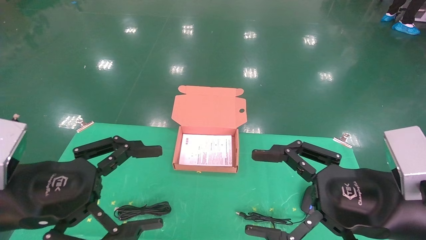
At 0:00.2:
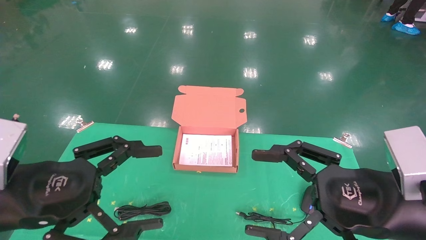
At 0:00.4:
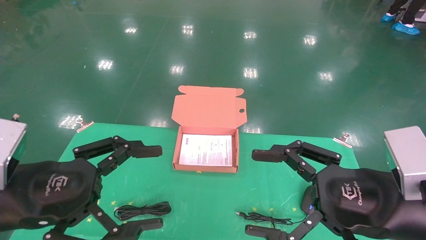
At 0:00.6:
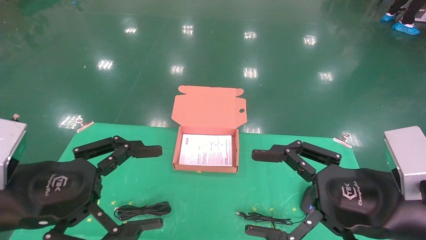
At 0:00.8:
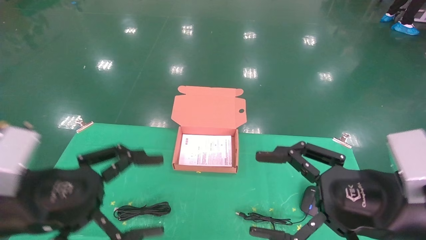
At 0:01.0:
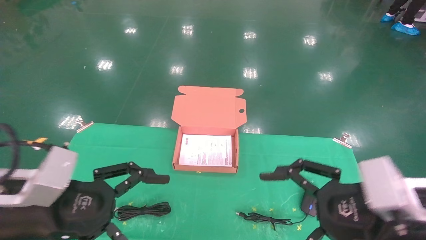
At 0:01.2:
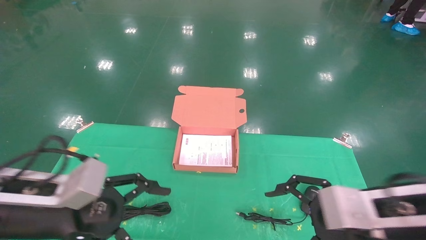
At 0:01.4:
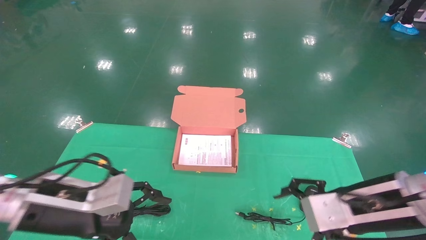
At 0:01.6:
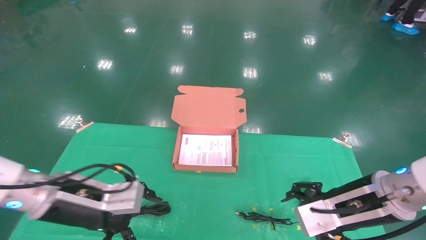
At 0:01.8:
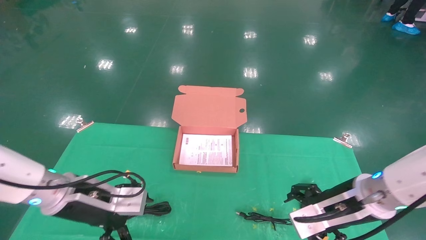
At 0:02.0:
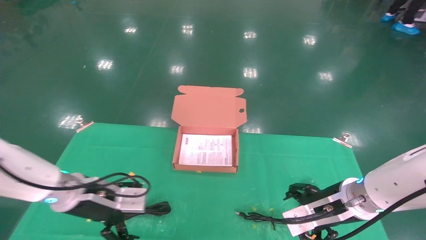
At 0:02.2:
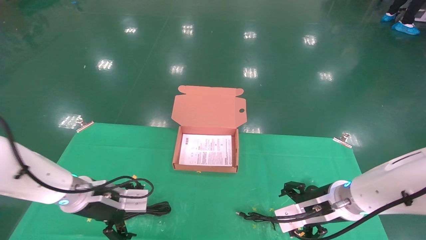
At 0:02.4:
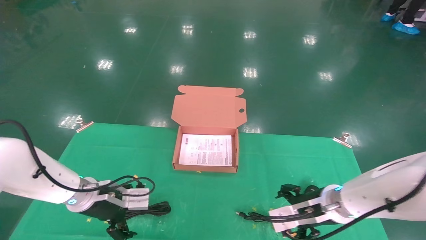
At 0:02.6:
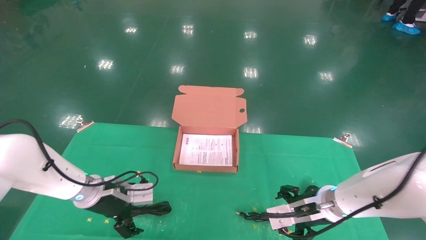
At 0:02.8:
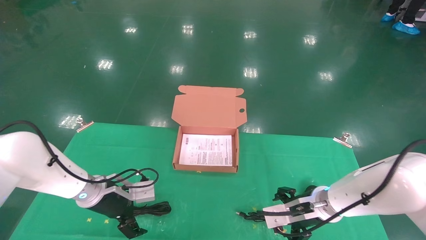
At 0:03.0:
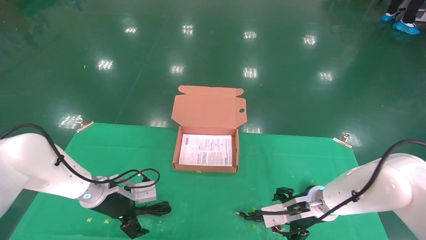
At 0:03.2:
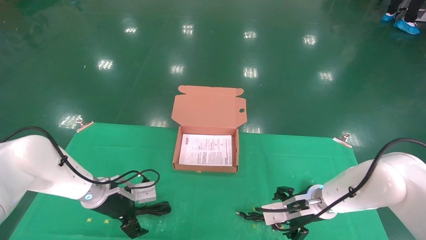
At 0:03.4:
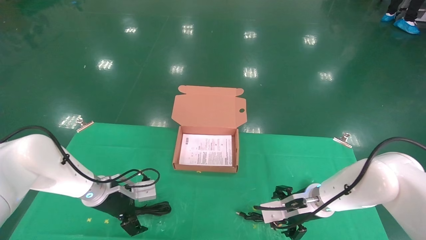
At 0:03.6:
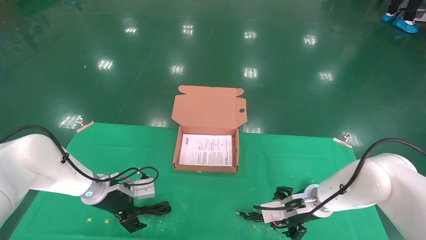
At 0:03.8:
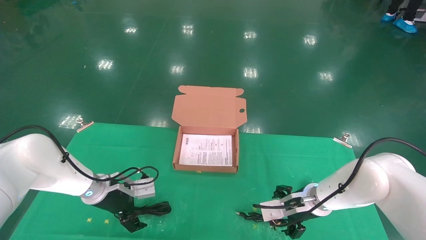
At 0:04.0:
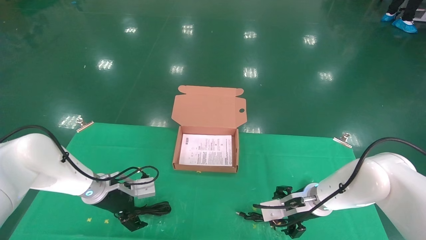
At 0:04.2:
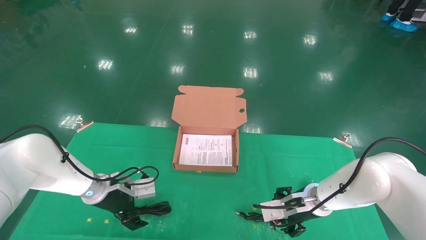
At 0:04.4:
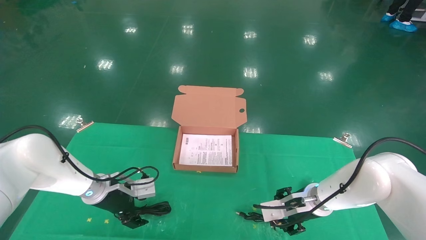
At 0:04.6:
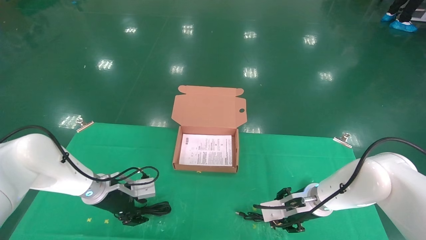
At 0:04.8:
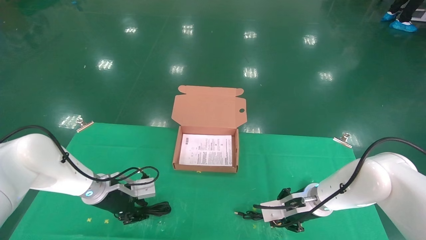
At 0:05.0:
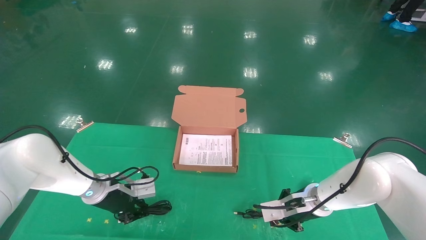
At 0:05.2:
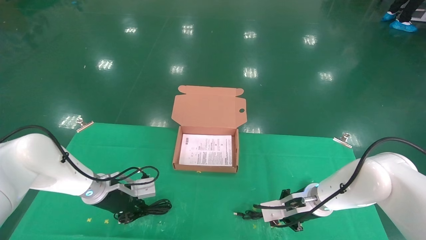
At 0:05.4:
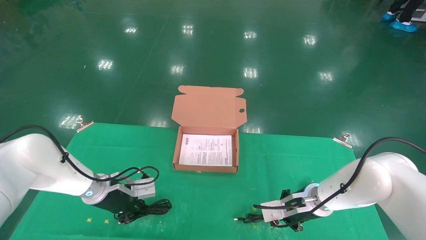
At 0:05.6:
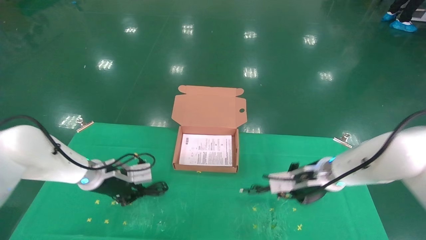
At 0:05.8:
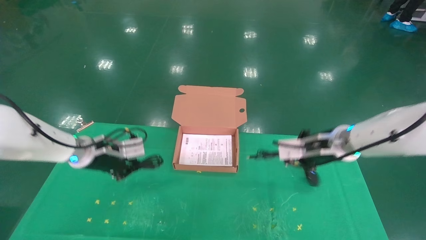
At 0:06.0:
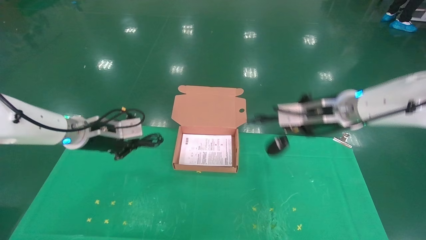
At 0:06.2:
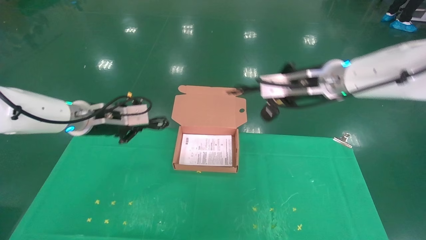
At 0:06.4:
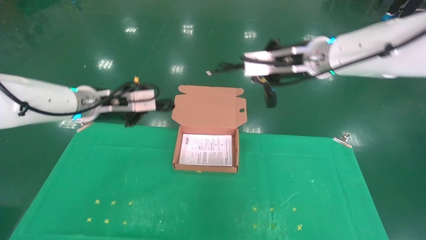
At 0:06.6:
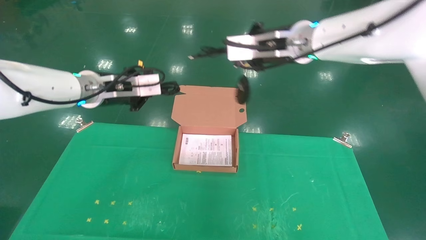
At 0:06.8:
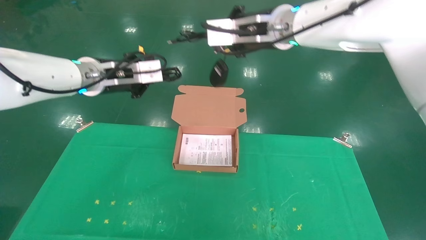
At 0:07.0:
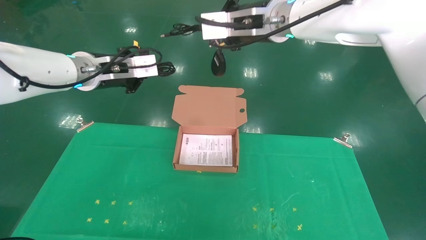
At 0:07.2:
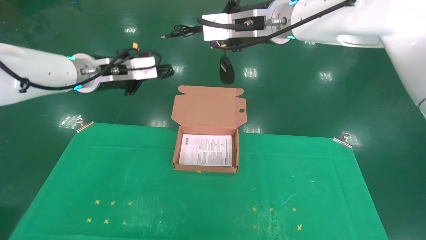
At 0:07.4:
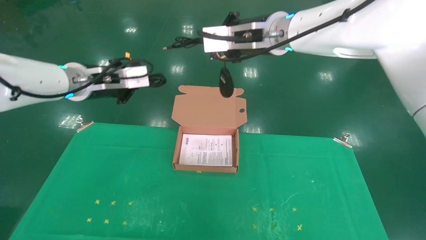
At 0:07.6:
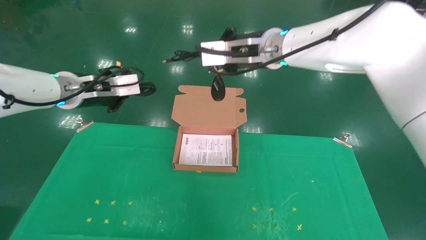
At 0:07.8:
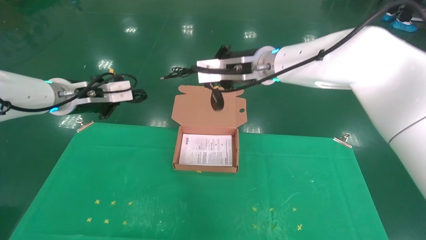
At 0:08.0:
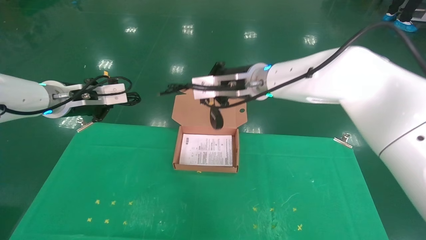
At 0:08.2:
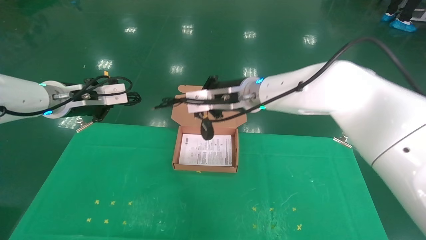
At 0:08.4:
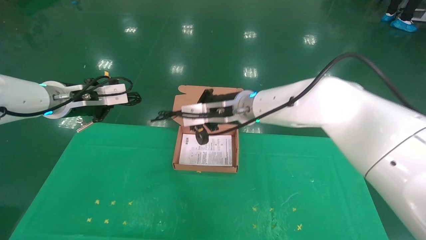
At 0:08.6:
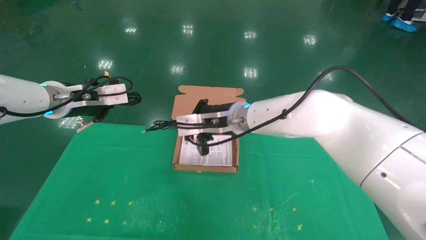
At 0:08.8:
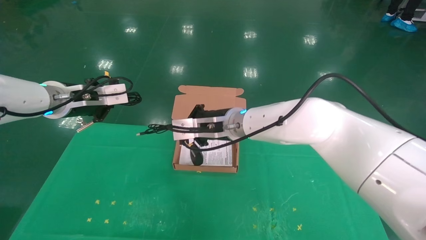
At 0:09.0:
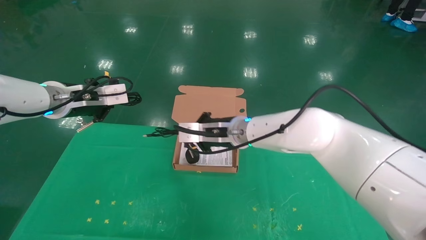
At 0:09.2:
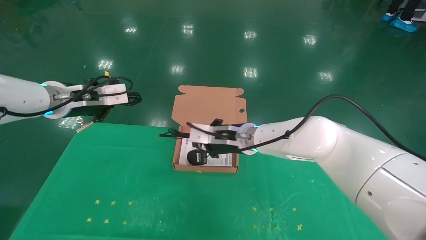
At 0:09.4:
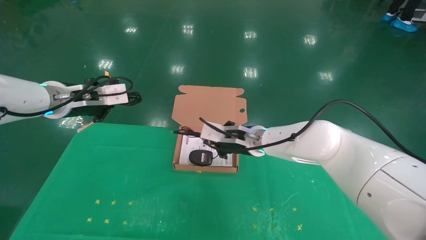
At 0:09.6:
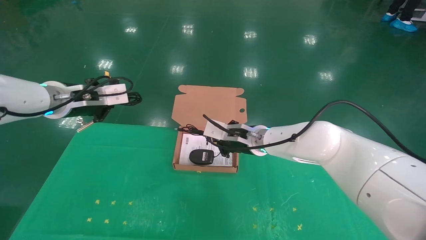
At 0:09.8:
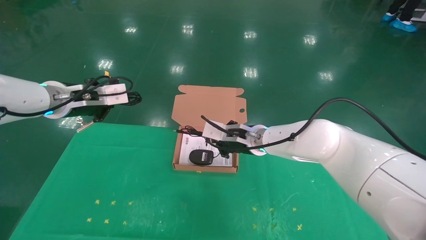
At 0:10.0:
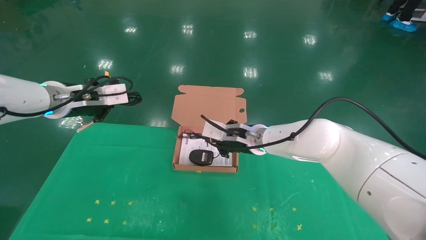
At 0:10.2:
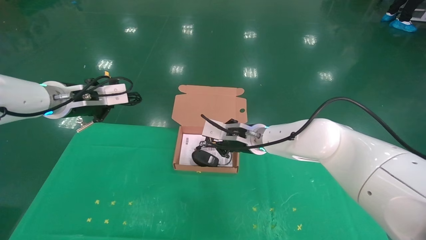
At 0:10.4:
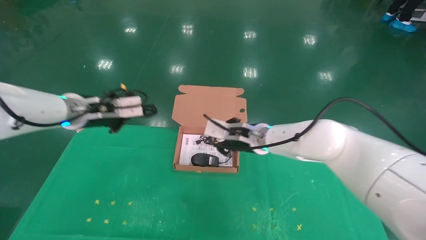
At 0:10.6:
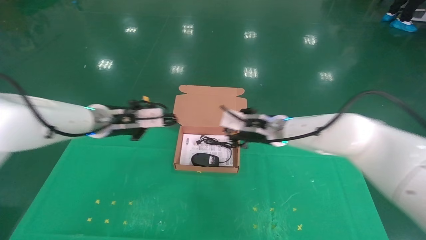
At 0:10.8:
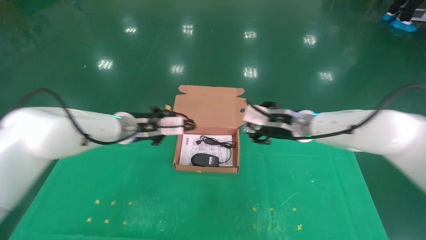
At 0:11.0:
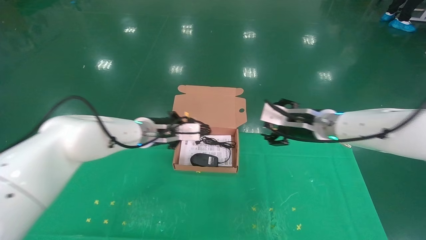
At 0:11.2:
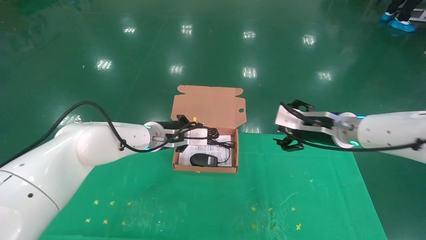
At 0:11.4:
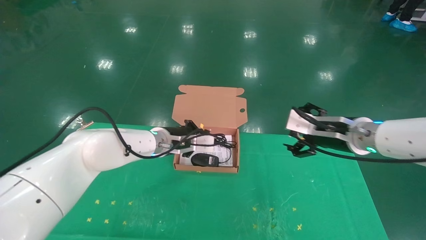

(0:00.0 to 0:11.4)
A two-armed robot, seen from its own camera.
Task of the whole recording: grasp data cable left put into box grasp mouse right put into box.
Step, 0:01.0 - 0:04.8: Grab and pick up both the mouse and power cord from the accessory packaging area at the same time.
0:00.0 - 0:01.4: The right gripper travels forward by about 5 cm. The left gripper goes about 10 cm forward and downward.
0:01.4 - 0:02.8: The two grippers go roughly 15 cm forward and downward.
0:02.8 - 0:04.2: The grippers move only a little.
0:04.2 - 0:05.6: The left gripper travels upward by about 5 cm, and closes its fingers. The right gripper moves upward, approximately 10 cm, and closes up.
0:05.6 - 0:07.2: The left gripper moves upward, approximately 20 cm. The right gripper moves upward and to the left, approximately 30 cm.
0:07.2 - 0:08.6: The right gripper goes about 15 cm downward; the left gripper is displaced to the left by about 5 cm.
0:08.6 - 0:10.0: The right gripper is displaced downward by approximately 10 cm.
0:10.0 - 0:11.4: The left gripper heads to the right, downward and forward, covering approximately 25 cm, while the right gripper goes approximately 20 cm to the right and backward, and opens its fingers.

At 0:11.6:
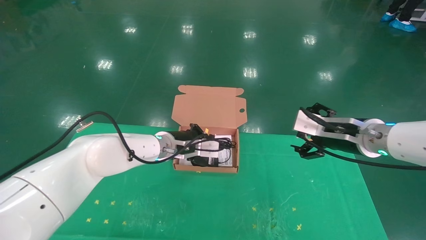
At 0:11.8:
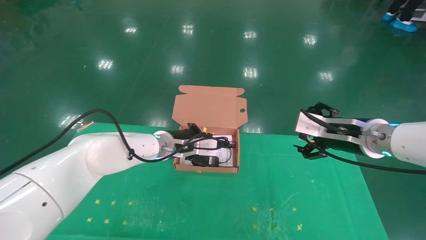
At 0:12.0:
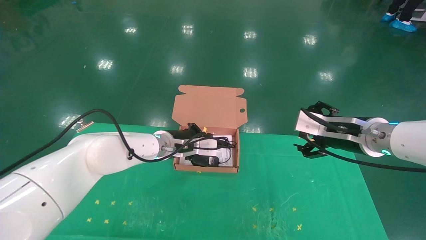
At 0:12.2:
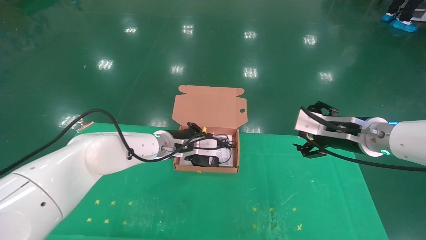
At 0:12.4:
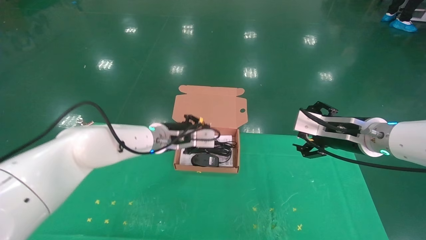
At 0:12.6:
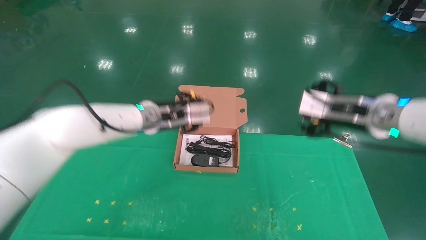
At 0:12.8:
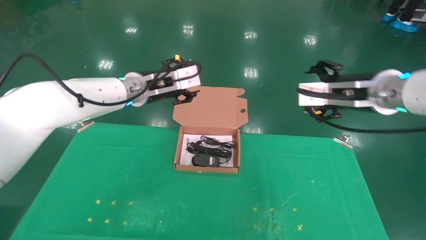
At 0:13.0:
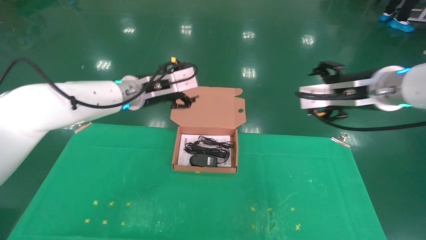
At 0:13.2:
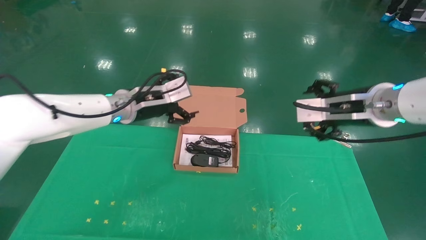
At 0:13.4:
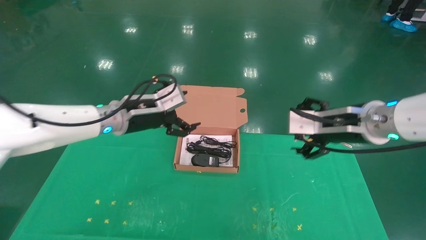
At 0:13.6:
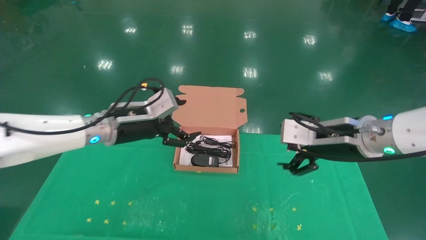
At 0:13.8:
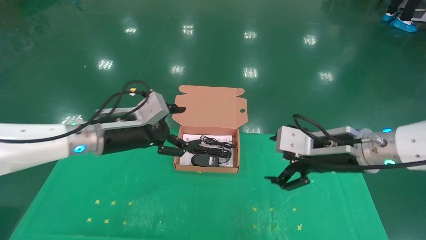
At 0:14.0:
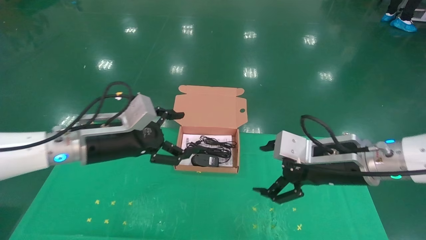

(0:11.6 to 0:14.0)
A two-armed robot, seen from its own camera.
Task of the whole recording: grasp data cable left put into box grasp mouse right put into box.
0:11.6 - 0:12.8: The left gripper is displaced upward by roughly 10 cm, and opens up. Meanwhile the right gripper moves upward, roughly 5 cm.
0:12.8 - 0:14.0: The left gripper is displaced backward, to the left and downward by roughly 15 cm, and opens its fingers, while the right gripper travels downward by some 10 cm.
